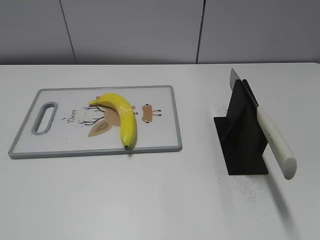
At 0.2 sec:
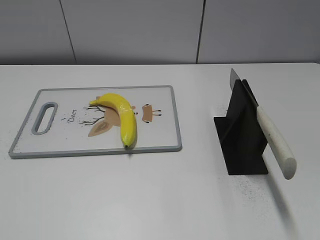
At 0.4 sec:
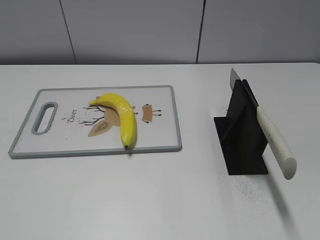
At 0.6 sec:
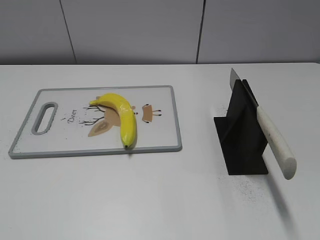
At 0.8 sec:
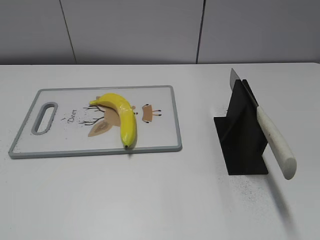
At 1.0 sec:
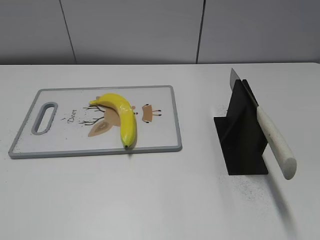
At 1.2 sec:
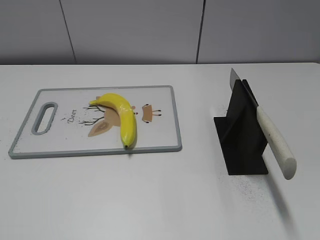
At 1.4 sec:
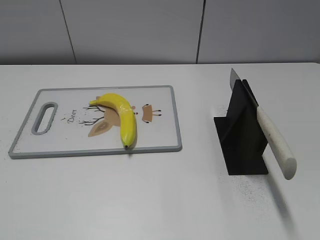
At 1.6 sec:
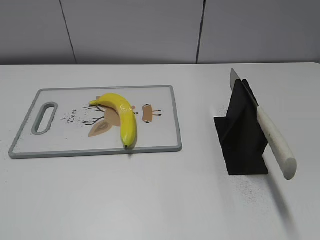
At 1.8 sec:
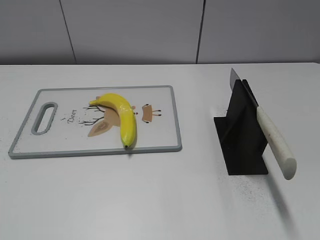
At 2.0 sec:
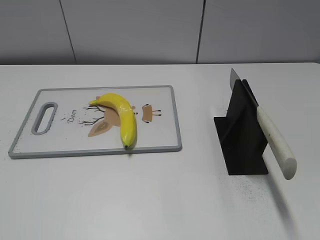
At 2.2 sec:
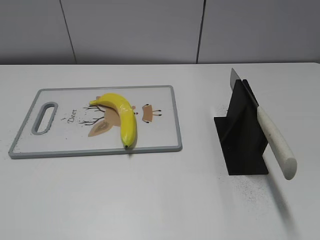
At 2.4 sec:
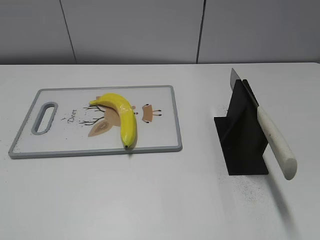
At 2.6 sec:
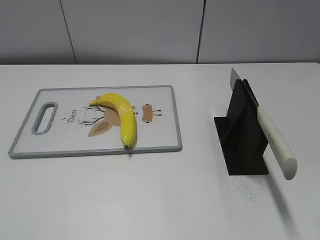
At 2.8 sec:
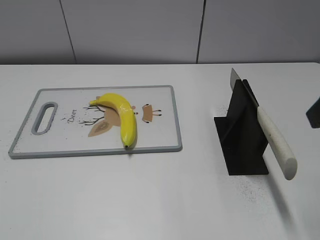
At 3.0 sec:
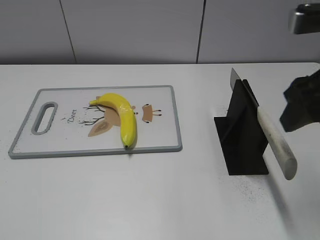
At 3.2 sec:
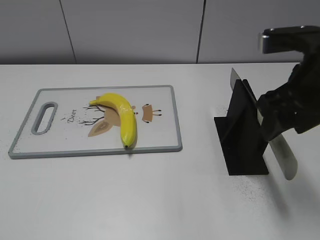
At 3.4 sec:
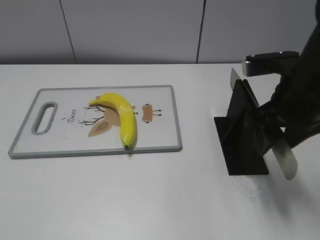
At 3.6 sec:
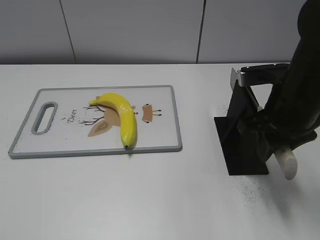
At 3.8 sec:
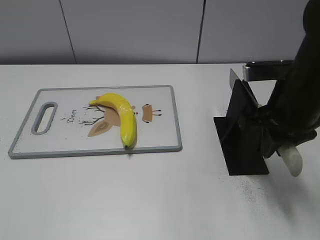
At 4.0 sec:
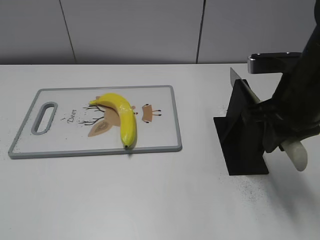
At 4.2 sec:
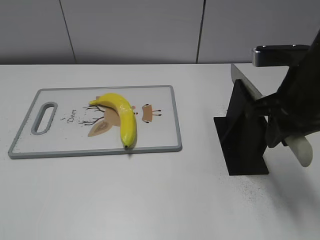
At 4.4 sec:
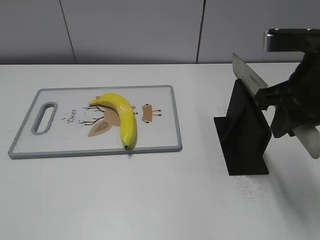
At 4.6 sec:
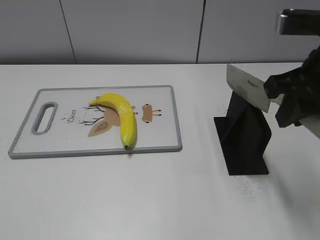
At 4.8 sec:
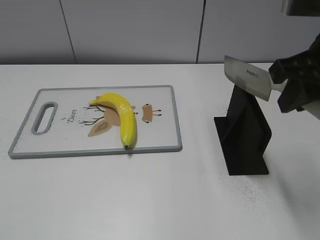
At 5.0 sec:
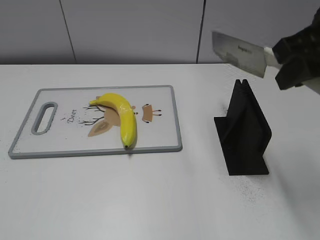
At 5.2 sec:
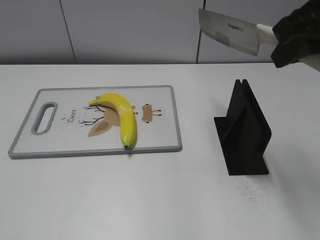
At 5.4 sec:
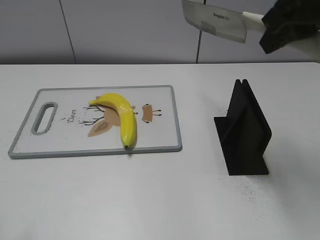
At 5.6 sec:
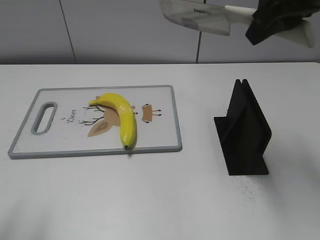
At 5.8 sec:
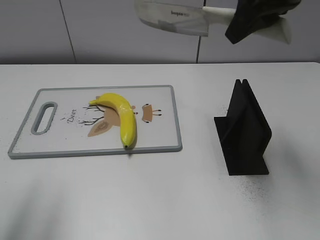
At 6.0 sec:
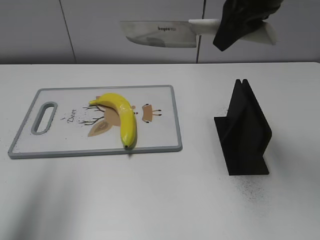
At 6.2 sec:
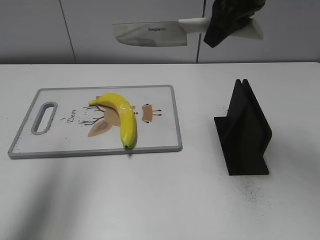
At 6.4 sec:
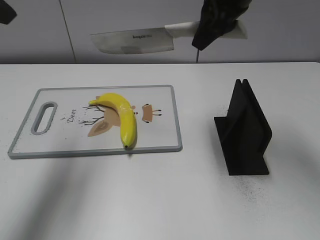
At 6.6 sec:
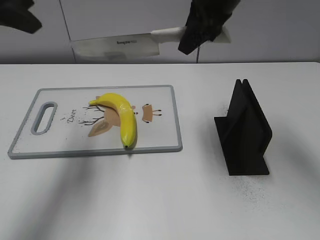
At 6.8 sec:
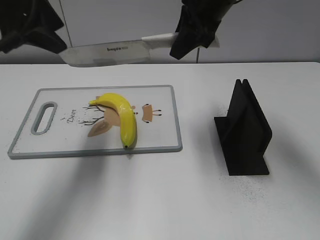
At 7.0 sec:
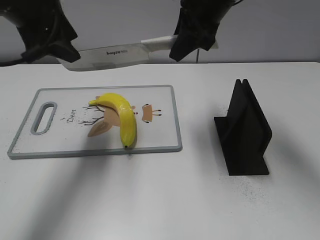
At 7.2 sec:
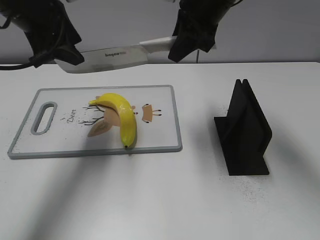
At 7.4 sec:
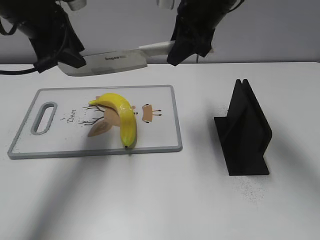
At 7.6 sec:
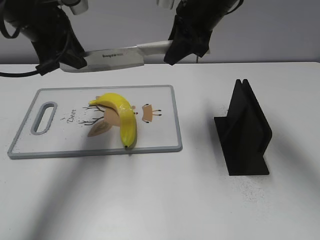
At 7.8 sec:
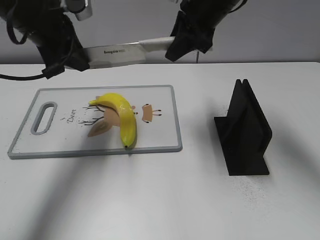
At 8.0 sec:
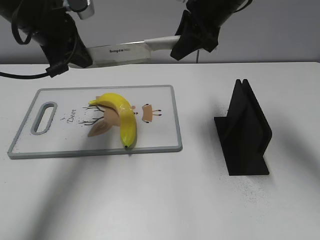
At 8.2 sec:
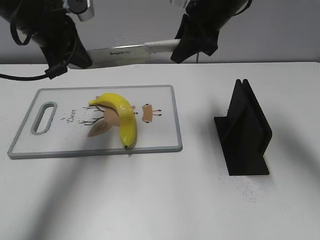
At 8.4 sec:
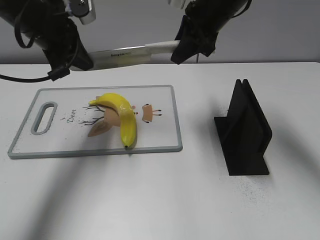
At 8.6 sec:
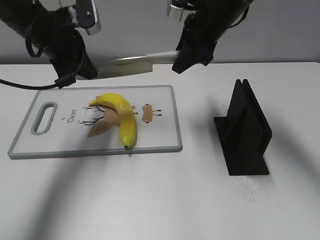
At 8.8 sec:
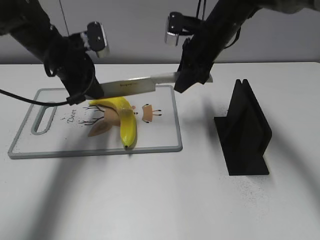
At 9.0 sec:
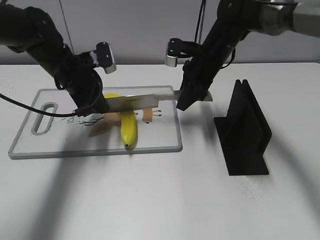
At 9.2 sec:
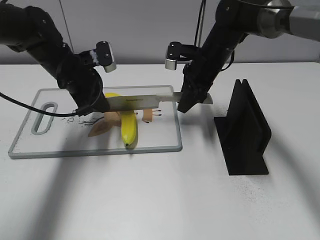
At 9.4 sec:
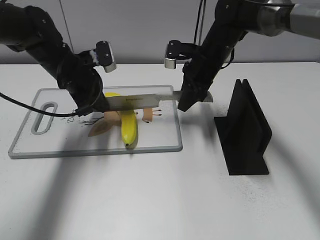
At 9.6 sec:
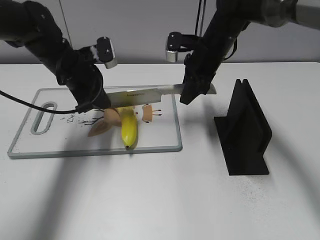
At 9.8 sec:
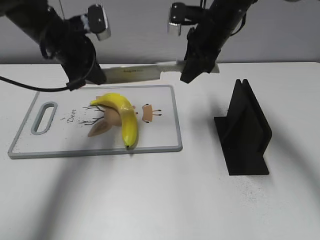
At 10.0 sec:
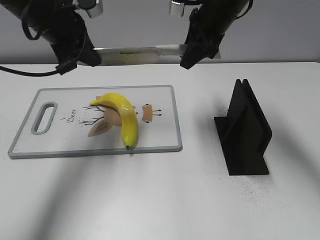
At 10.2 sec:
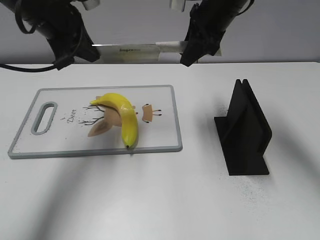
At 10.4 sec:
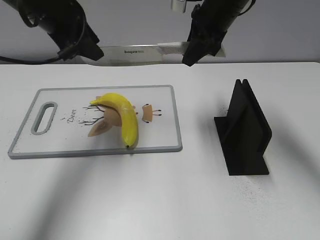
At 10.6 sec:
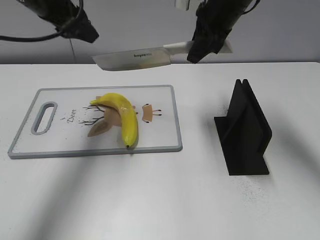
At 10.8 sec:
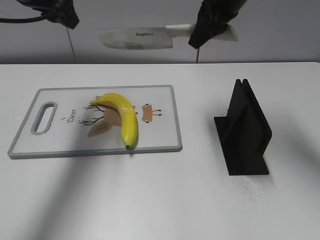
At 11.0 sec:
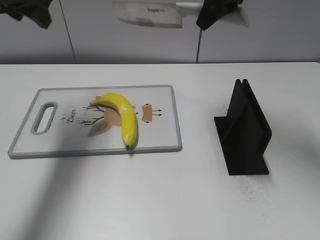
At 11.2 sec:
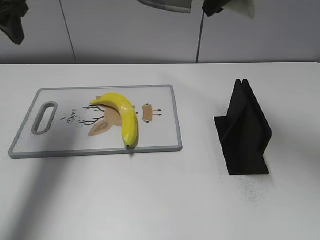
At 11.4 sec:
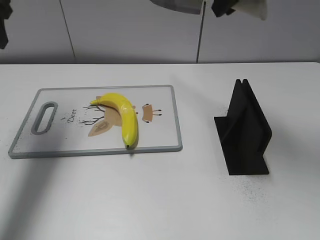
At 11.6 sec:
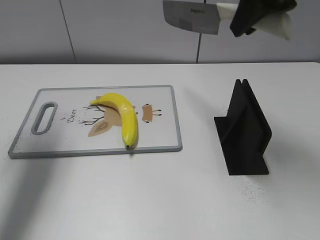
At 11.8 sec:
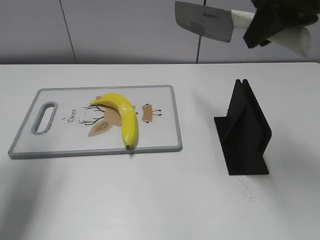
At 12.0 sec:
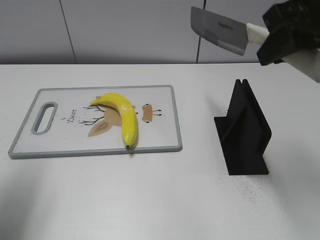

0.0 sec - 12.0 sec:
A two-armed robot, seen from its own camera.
Task of the whole recording: cut plastic banana.
Step, 0.0 sec - 4.6 sec: Grab the knife handle with your right hand.
Step, 4.8 sec - 10.0 sec: Lift the knife with your right hand.
Step, 10.2 sec - 11.4 sec: Cut the banana with your right hand.
1.6 sec - 3.0 sec: The right gripper moves forward and to the left, some 25 cm.
3.0 sec - 4.4 sec: The right gripper goes downward and returns, roughly 10 cm each way, and closes its fingers.
4.4 sec - 6.0 sec: The left gripper moves forward and upward, some 25 cm, while the right gripper goes approximately 15 cm forward, upward and to the left.
6.0 sec - 7.6 sec: The right gripper goes approximately 10 cm forward and downward, while the left gripper shifts approximately 20 cm forward, downward and to the right, and closes its fingers.
7.6 sec - 9.0 sec: The two grippers go approximately 15 cm downward. The left gripper closes up.
9.0 sec - 10.4 sec: Both grippers travel together upward, about 15 cm. The left gripper opens.
10.4 sec - 12.0 sec: The right gripper shifts roughly 20 cm backward, to the right and upward. The left gripper is displaced backward and to the left by roughly 20 cm.

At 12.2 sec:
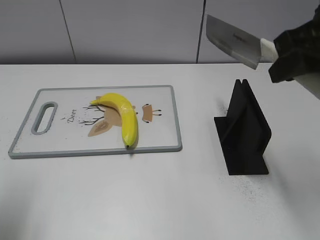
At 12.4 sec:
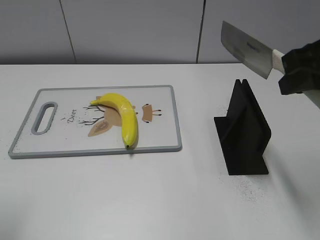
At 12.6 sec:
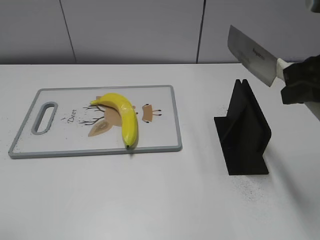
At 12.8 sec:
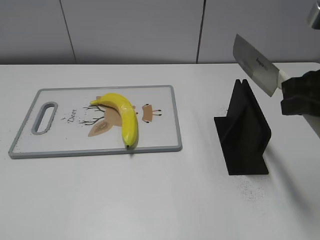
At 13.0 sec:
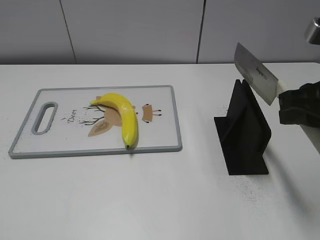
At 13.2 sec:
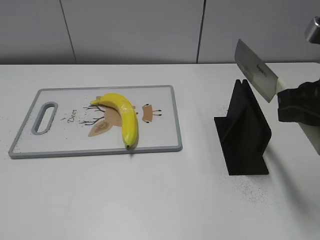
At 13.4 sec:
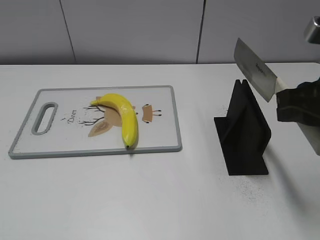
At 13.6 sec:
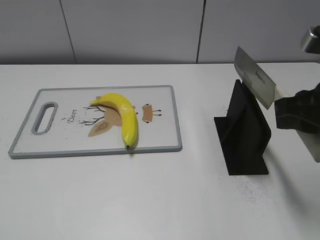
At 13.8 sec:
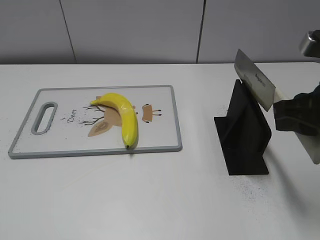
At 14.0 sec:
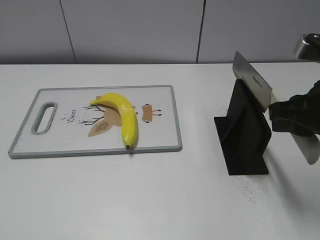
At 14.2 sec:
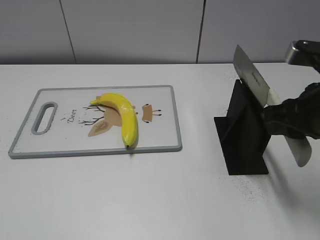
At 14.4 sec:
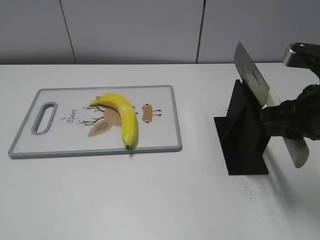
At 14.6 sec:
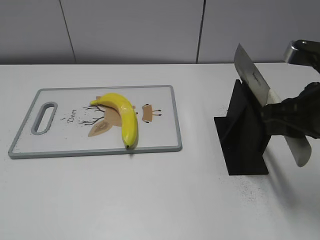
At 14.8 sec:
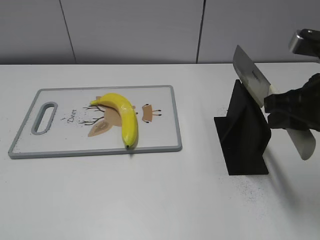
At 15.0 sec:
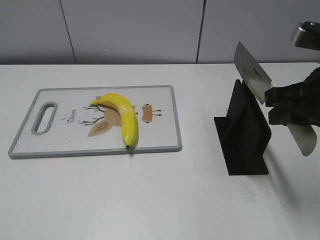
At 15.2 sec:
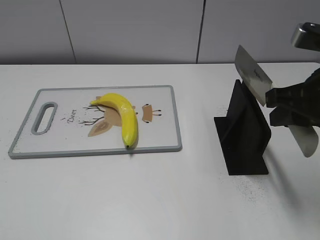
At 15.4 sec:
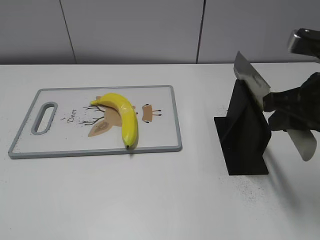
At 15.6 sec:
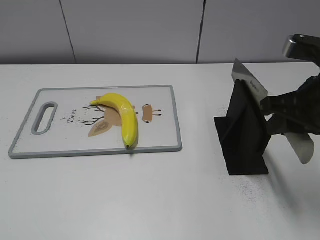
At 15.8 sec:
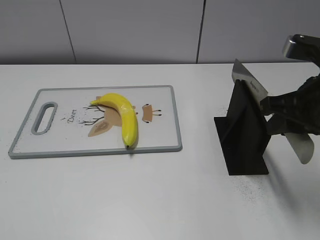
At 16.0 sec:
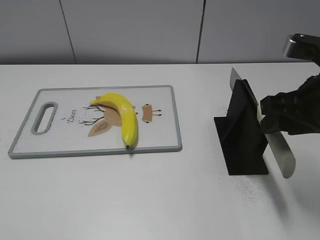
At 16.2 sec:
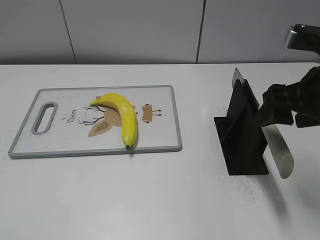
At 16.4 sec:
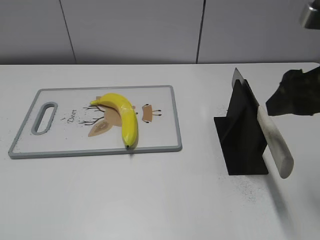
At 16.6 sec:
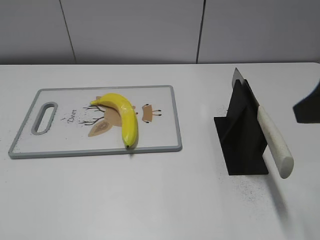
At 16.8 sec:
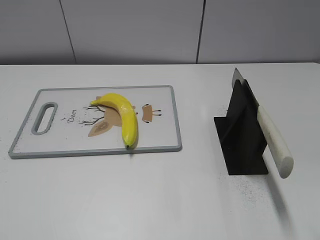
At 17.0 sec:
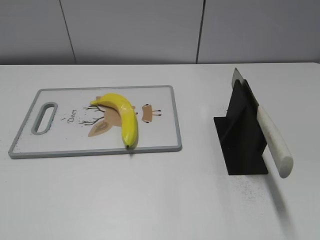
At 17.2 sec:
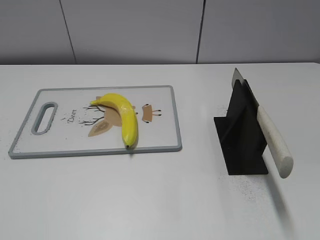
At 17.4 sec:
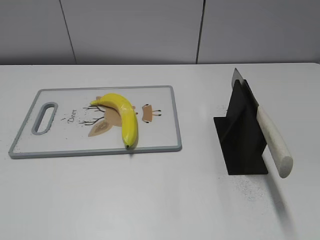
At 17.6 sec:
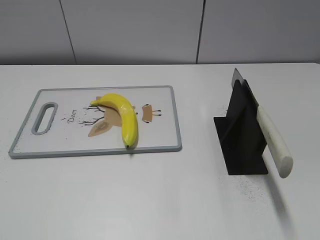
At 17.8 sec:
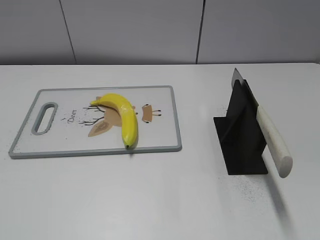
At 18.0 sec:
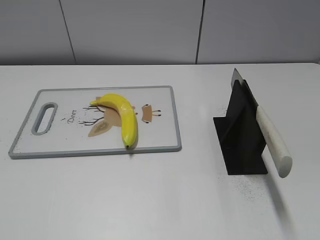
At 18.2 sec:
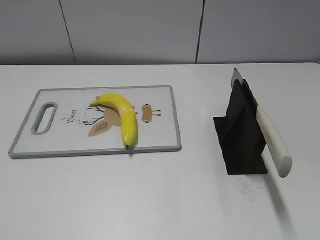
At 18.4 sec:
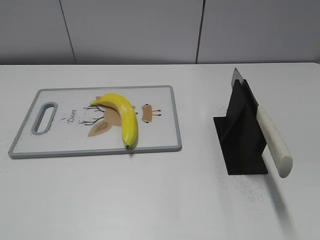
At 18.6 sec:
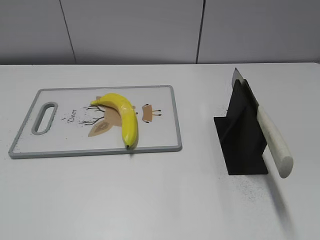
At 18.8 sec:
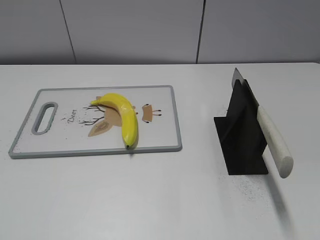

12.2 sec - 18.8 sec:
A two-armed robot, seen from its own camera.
Task of the whole recording: cut plastic banana.
Step, 13.0 sec - 18.8 sec: Place the knife on the storage rack with your right hand.
12.2 sec - 13.8 sec: The left gripper shifts about 20 cm backward. Meanwhile the right gripper heads downward, covering some 10 cm.
13.8 sec - 15.4 sec: The grippers make only small movements.
15.4 sec - 17.2 sec: The right gripper is displaced backward by some 20 cm, and opens its fingers.
